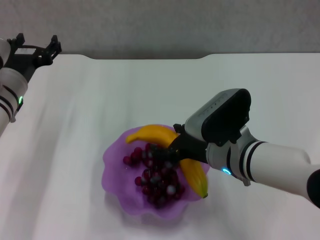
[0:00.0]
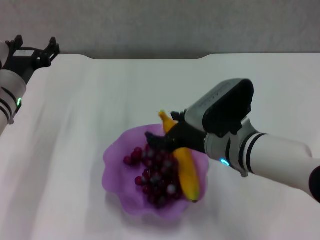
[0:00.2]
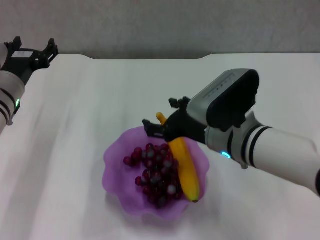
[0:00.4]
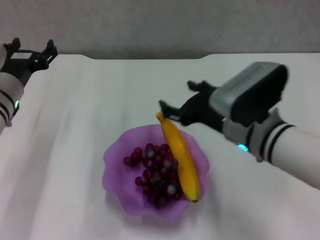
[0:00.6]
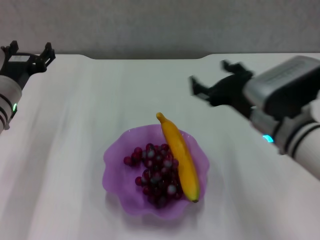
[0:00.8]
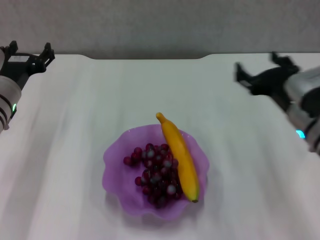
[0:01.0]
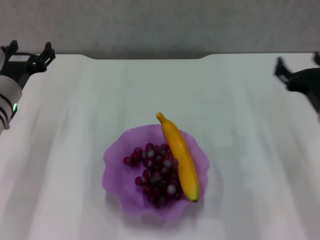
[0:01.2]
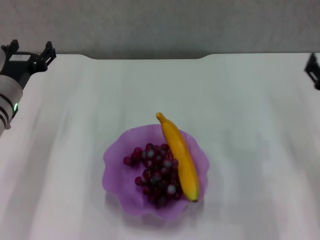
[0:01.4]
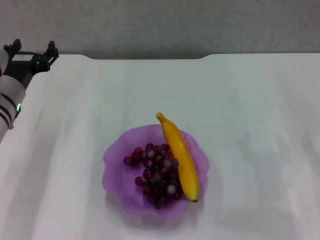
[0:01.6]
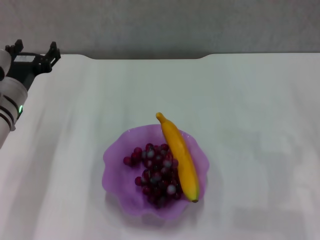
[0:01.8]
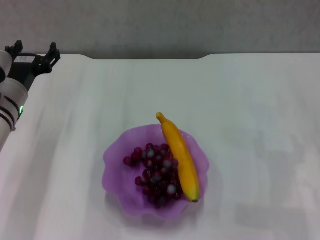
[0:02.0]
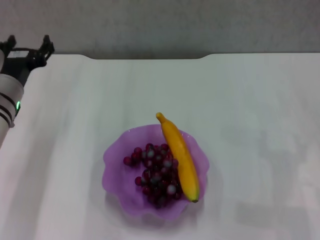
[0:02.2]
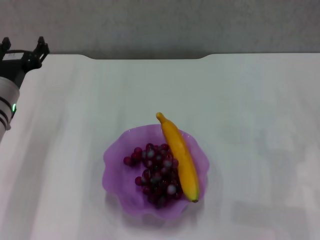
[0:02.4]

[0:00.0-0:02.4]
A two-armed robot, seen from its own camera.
0:00.0 to 0:01.2: The right gripper moves to the right, some 15 cm, and opens its fingers.
0:01.2 to 0:02.4: The right gripper moves to the right, some 10 cm.

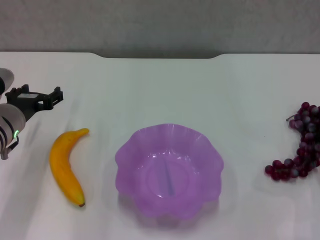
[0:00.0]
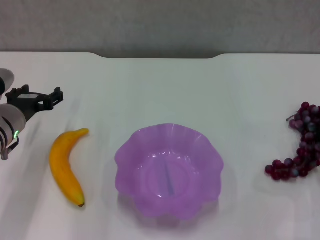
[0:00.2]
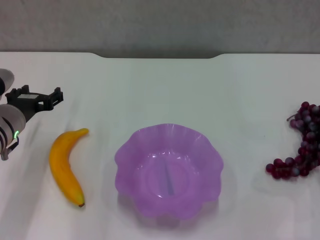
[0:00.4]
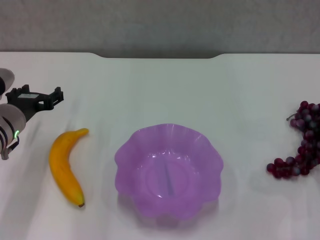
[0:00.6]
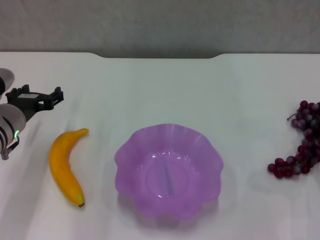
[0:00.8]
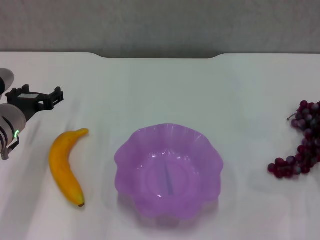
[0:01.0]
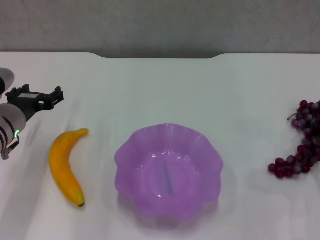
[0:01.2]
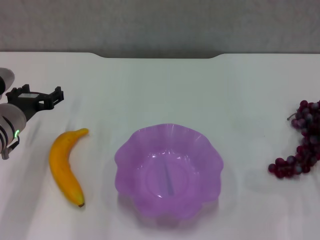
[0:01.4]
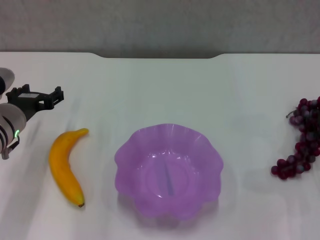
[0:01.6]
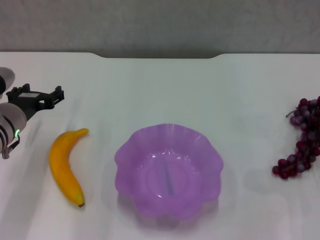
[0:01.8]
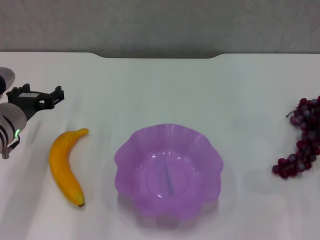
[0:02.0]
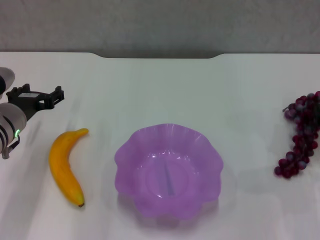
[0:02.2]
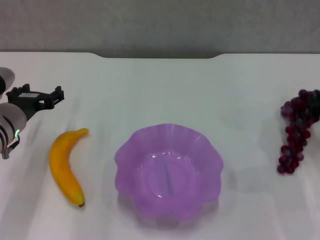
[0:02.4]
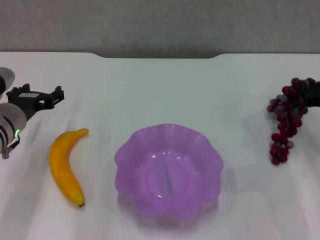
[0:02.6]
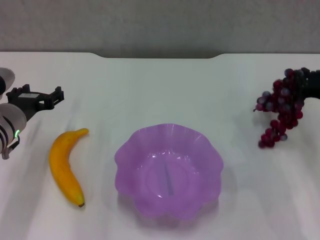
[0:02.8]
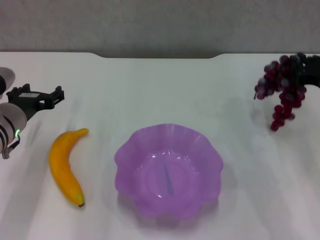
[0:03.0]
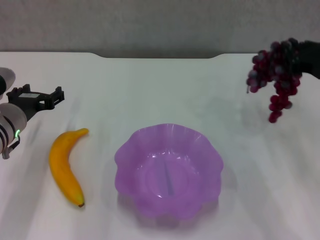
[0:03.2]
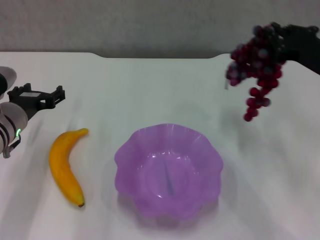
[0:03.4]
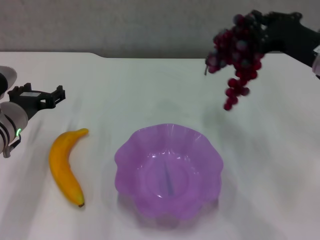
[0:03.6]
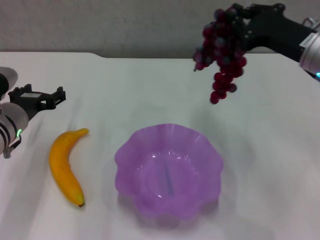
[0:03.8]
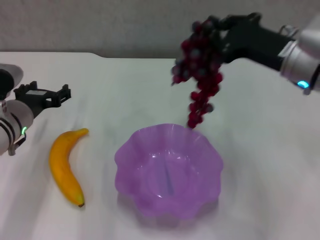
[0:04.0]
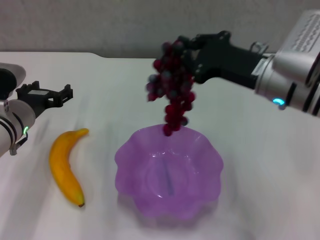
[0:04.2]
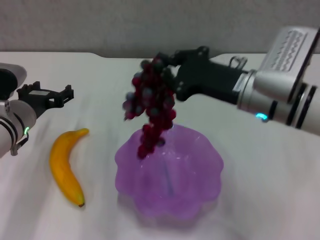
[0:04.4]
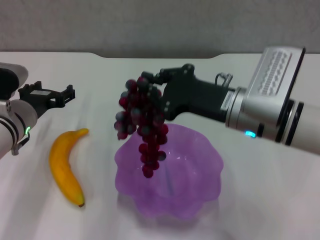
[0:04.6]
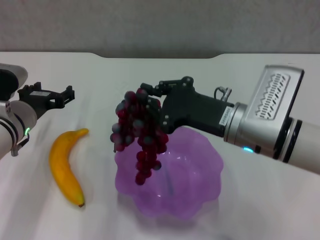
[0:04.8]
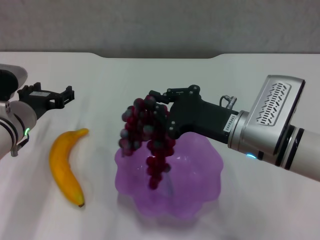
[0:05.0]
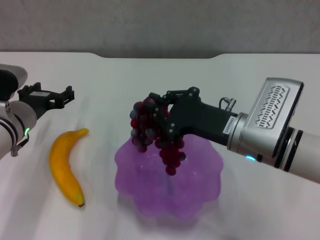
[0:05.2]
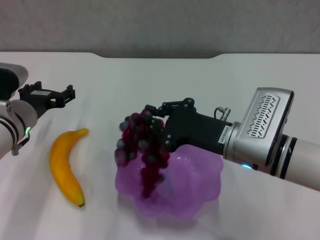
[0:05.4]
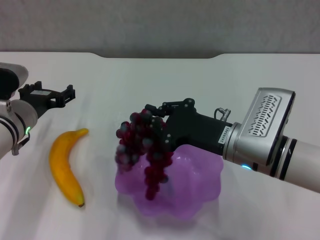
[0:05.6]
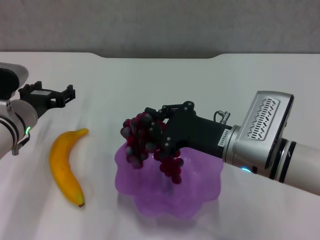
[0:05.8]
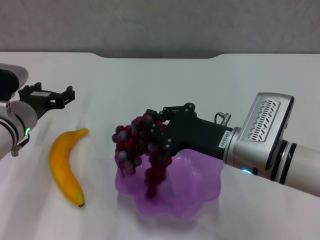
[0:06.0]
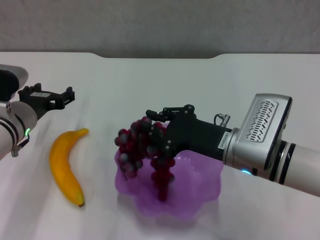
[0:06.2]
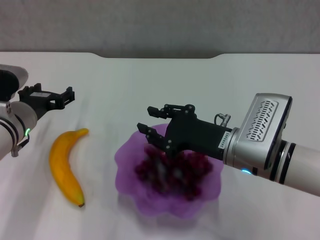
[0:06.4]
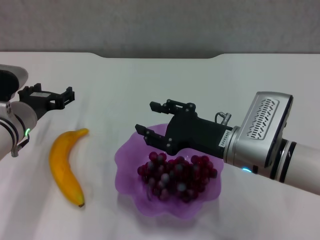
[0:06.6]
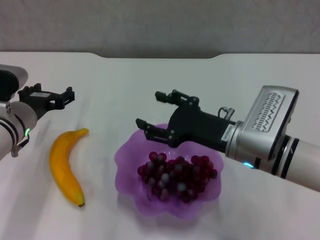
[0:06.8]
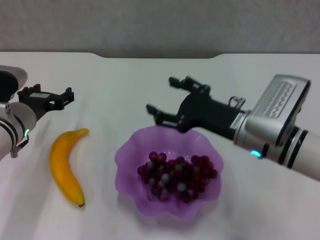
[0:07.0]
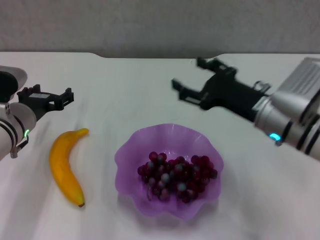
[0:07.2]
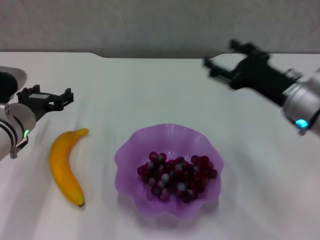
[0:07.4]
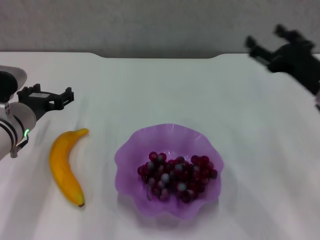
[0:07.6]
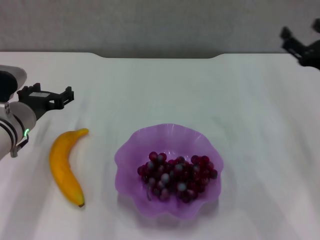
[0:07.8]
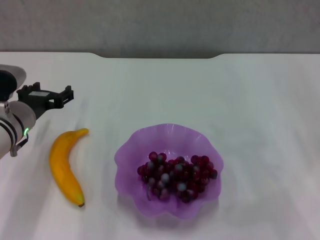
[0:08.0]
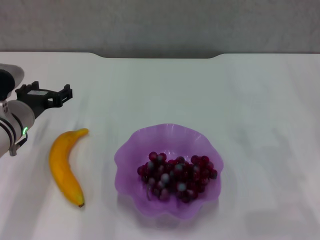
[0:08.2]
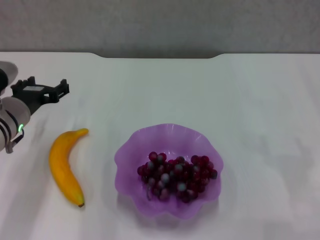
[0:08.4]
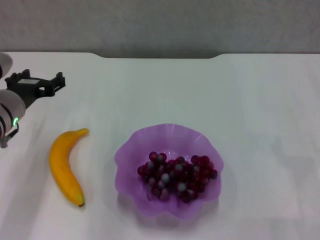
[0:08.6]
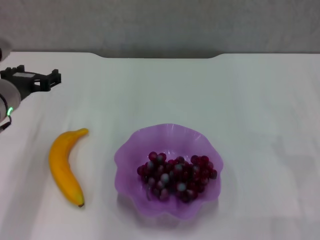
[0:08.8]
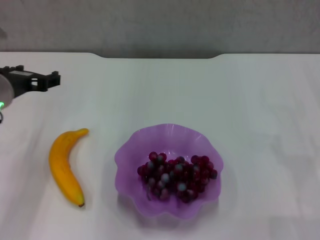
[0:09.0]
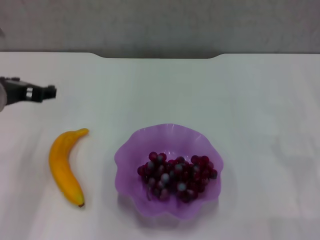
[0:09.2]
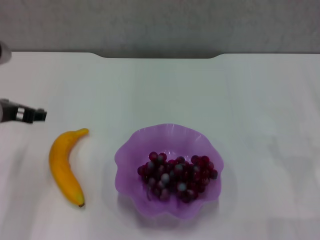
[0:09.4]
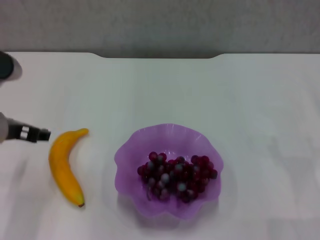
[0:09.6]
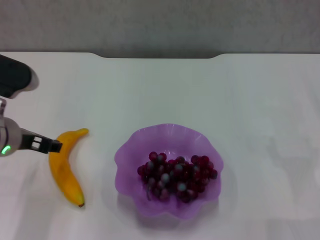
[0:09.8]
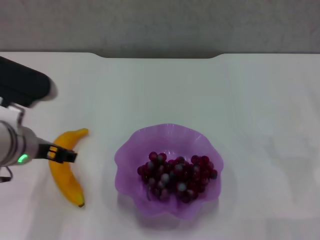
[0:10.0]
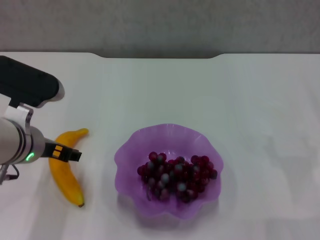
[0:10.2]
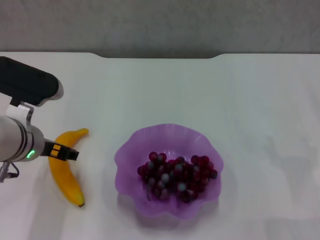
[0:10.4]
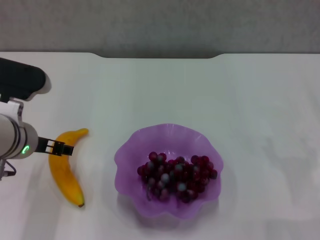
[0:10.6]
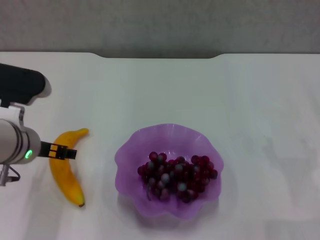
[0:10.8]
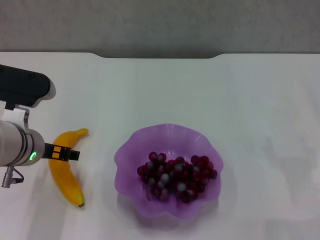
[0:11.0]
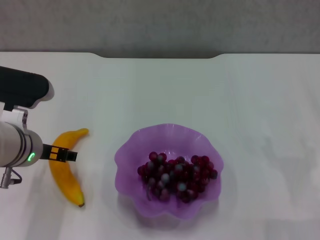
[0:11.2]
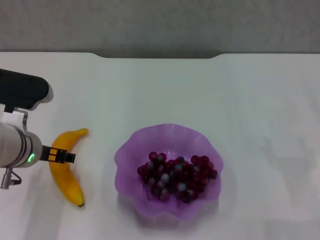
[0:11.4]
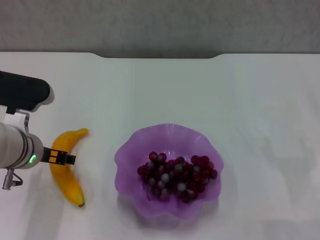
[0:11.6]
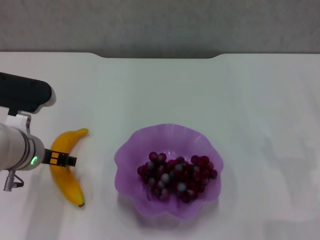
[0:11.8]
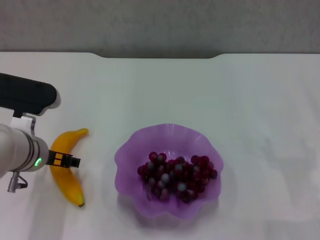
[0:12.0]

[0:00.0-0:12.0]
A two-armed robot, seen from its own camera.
Step, 0:00.0 to 0:06.6: Place the grape in the purple plate with right gripper.
0:00.0 to 0:01.6: The right gripper closes up.
0:01.6 to 0:03.0: The right gripper travels upward by some 5 cm.
0:03.0 to 0:04.4: The right gripper is displaced to the left by approximately 15 cm.
0:04.4 to 0:06.0: The right gripper moves downward, roughly 5 cm.
0:06.0 to 0:07.6: The right gripper moves to the right, some 15 cm, and opens up.
0:07.6 to 0:09.0: The left gripper heads upward, covering some 10 cm; the right gripper shifts about 15 cm to the right and backward.
0:09.0 to 0:10.4: The left gripper shifts by some 5 cm.
0:10.4 to 0:12.0: The grippers move only a little.

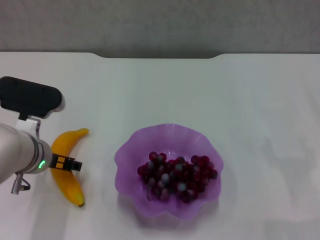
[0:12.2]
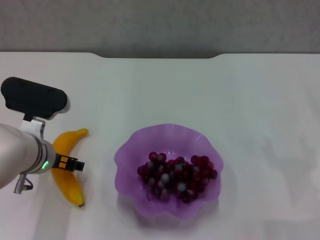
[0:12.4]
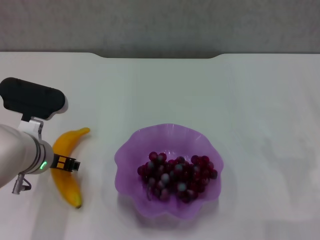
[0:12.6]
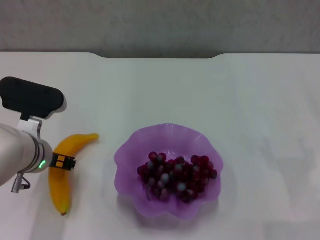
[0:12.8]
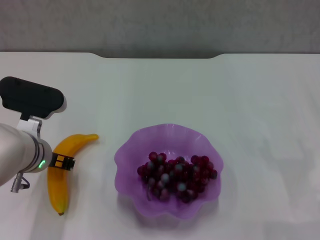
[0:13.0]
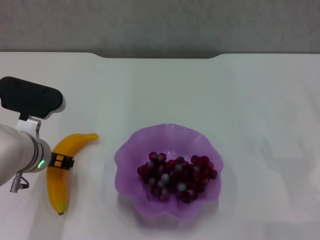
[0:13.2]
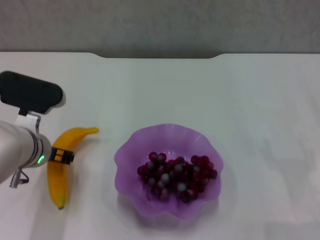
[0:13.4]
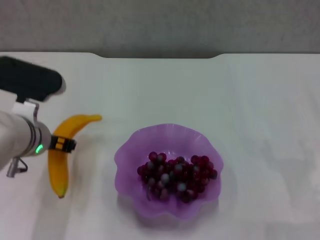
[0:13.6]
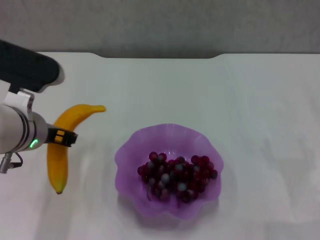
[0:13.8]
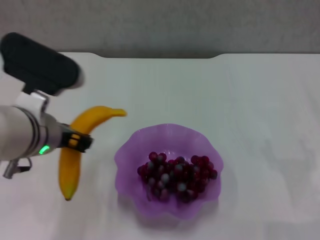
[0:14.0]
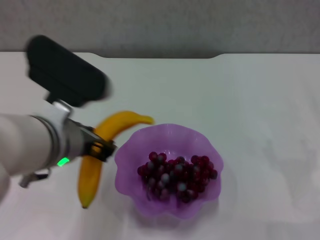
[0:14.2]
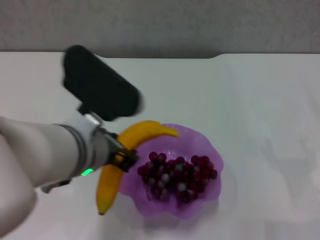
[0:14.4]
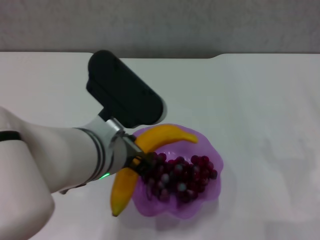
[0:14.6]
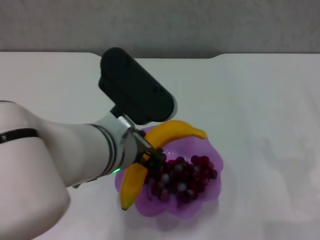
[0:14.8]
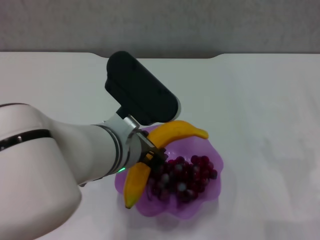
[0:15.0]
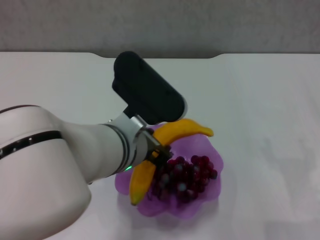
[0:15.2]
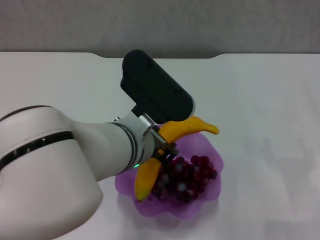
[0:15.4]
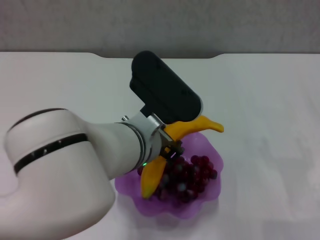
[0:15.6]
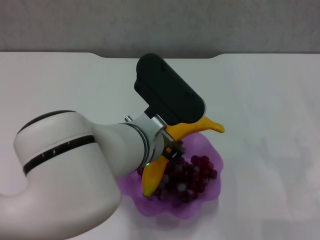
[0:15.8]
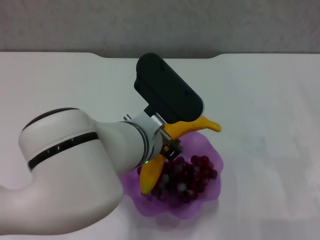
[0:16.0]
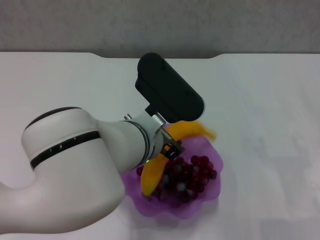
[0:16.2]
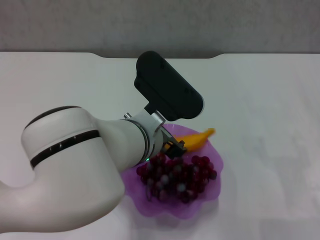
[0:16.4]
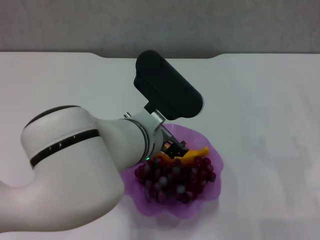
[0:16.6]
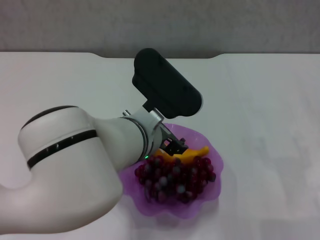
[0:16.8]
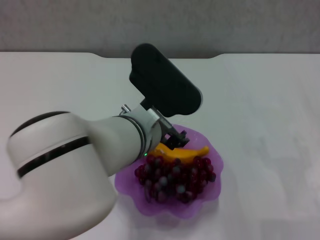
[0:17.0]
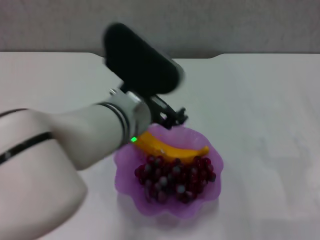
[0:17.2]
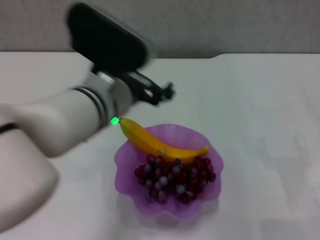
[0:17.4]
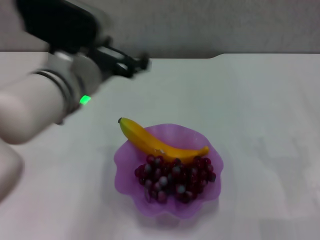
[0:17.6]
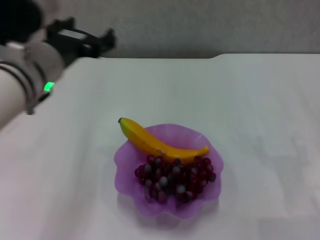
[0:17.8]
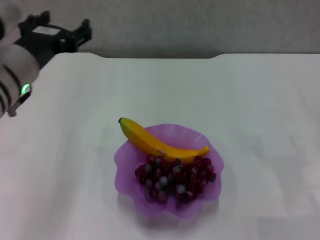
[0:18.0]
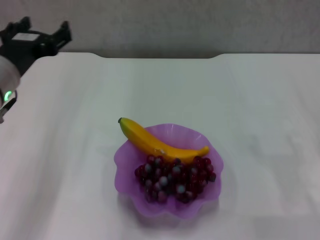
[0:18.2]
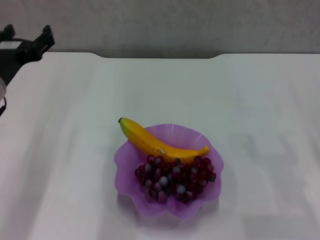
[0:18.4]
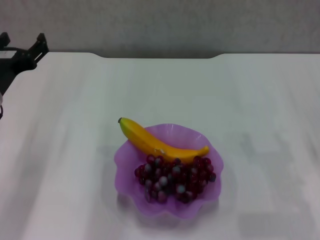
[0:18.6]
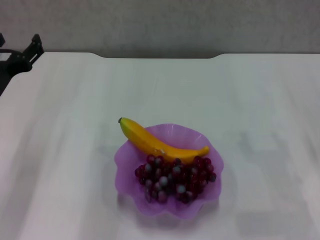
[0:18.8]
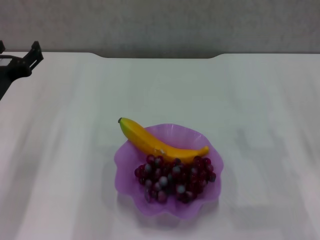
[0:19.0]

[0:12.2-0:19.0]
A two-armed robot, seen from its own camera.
Step, 0:13.2 to 0:17.4: Place the banana in the purple plate with left gripper.
0:12.2 to 0:13.6: The left gripper closes up.
0:13.6 to 0:15.0: The left gripper moves to the right and backward, some 15 cm.
0:15.0 to 0:16.2: The grippers move only a little.
0:16.2 to 0:17.6: The left gripper moves to the left and upward, about 10 cm, and opens up.
0:17.6 to 0:19.0: The left gripper goes about 15 cm to the left and downward.
